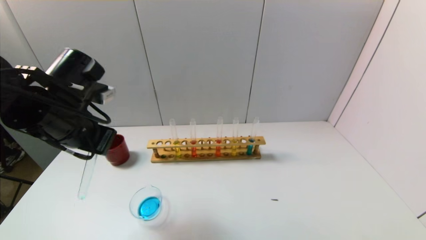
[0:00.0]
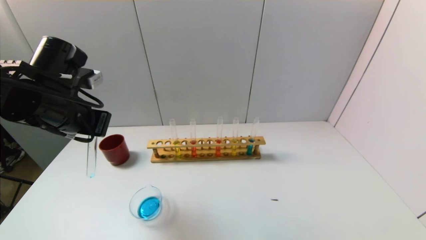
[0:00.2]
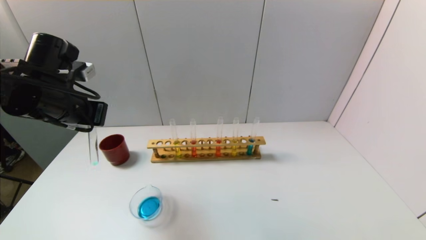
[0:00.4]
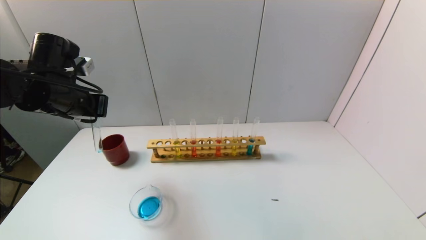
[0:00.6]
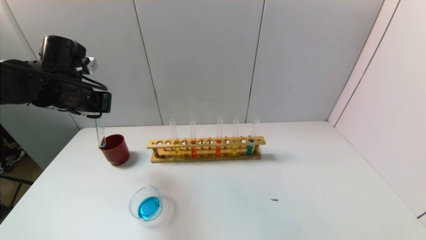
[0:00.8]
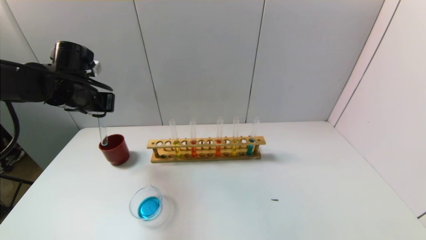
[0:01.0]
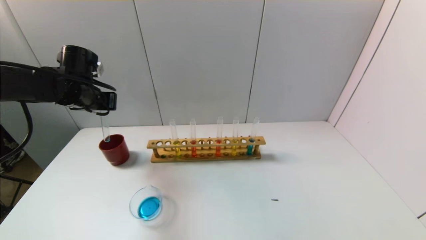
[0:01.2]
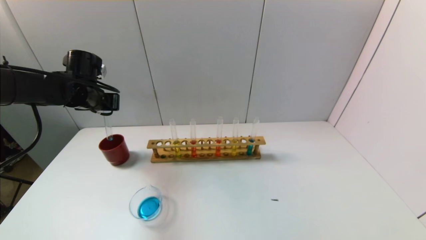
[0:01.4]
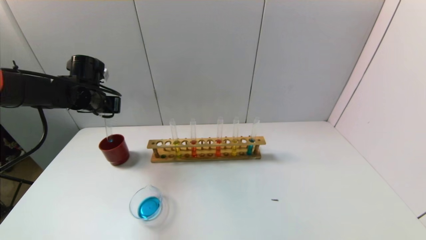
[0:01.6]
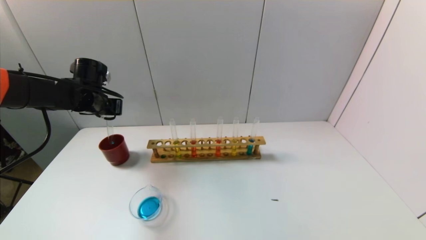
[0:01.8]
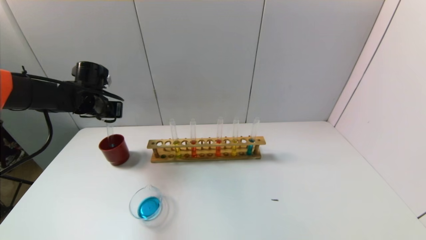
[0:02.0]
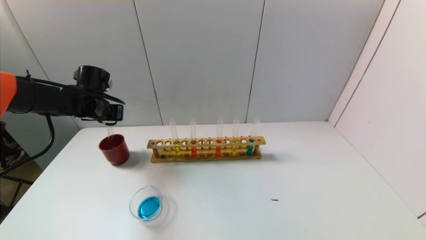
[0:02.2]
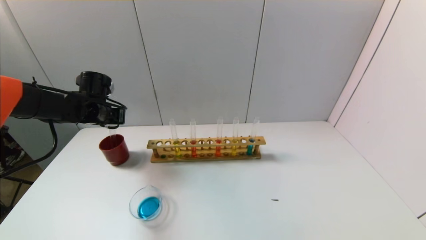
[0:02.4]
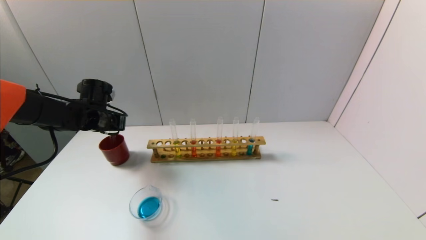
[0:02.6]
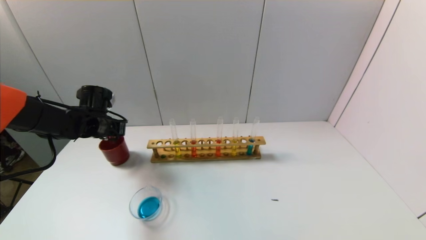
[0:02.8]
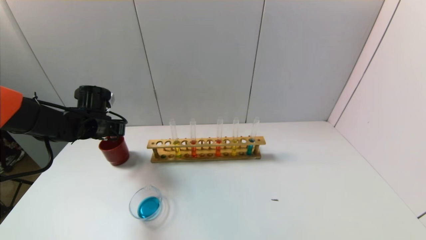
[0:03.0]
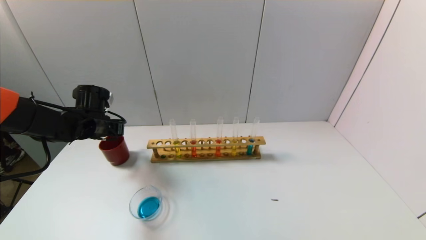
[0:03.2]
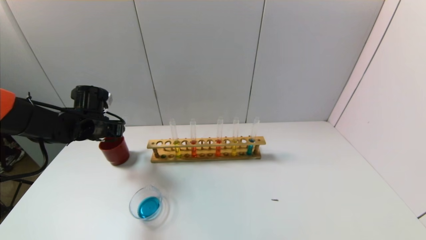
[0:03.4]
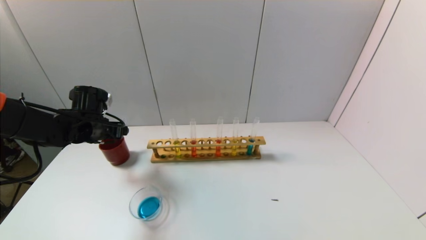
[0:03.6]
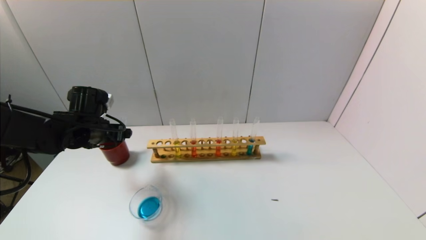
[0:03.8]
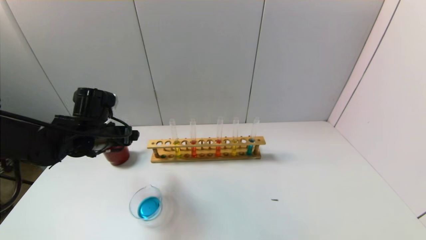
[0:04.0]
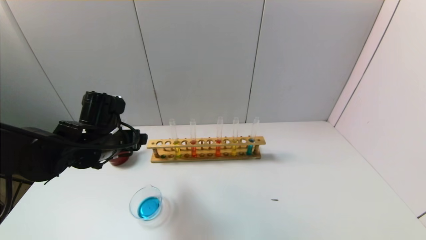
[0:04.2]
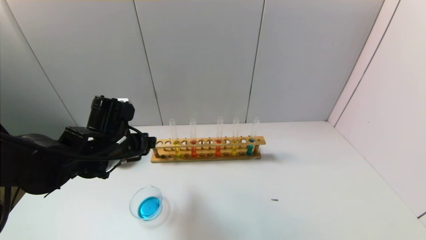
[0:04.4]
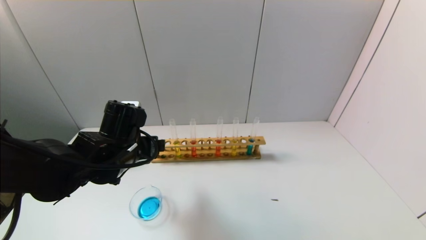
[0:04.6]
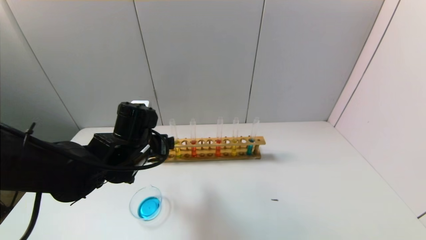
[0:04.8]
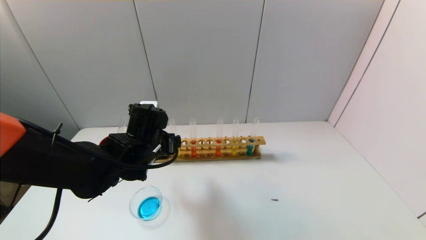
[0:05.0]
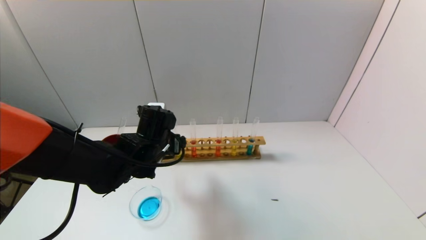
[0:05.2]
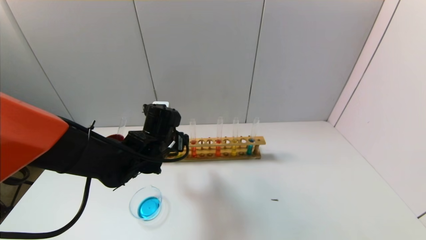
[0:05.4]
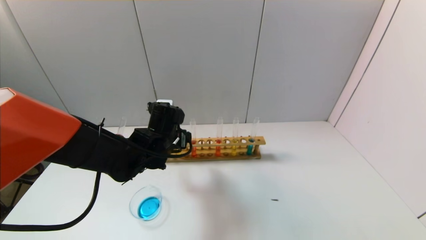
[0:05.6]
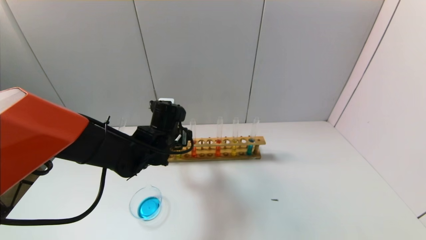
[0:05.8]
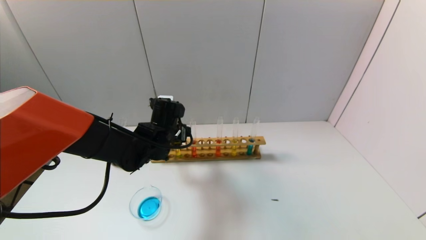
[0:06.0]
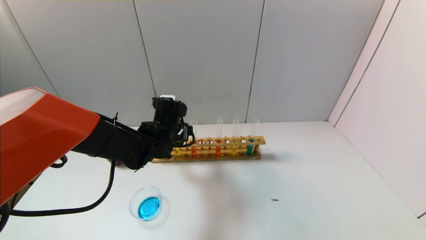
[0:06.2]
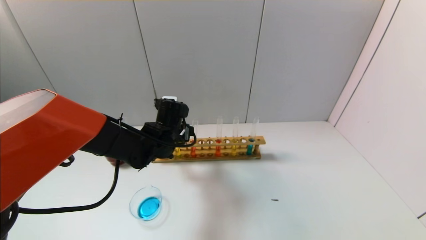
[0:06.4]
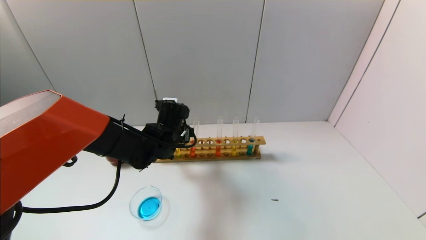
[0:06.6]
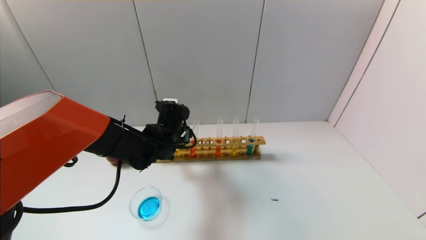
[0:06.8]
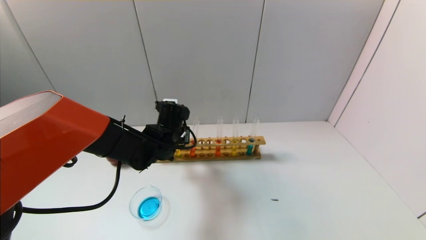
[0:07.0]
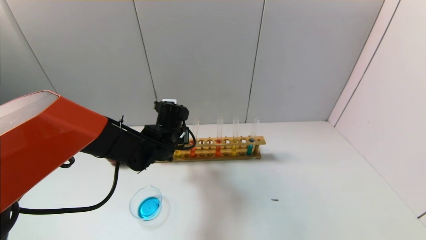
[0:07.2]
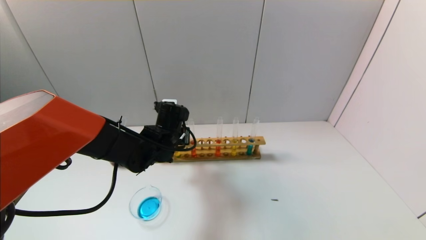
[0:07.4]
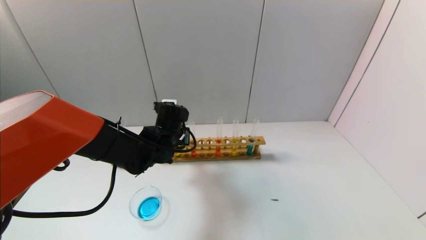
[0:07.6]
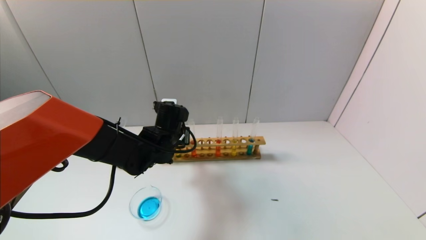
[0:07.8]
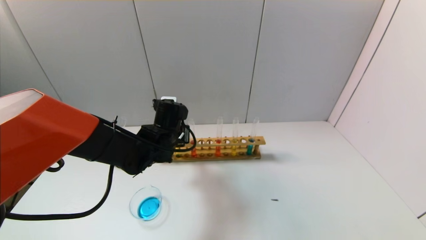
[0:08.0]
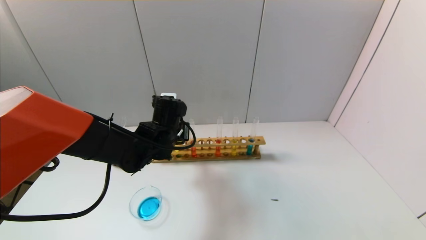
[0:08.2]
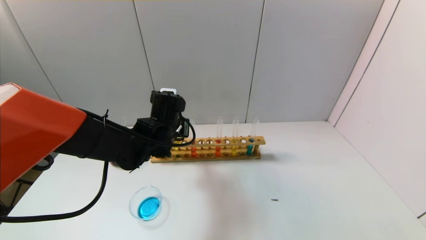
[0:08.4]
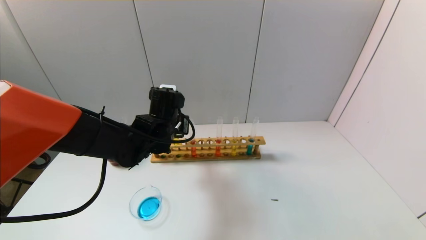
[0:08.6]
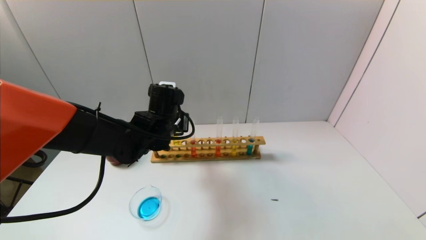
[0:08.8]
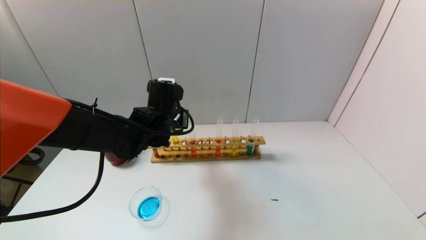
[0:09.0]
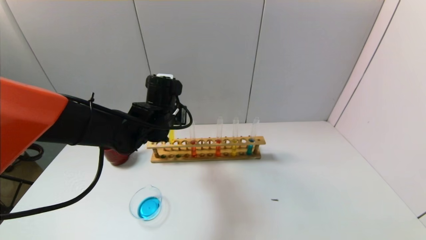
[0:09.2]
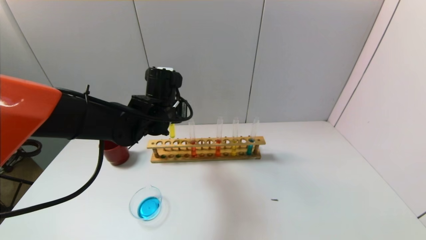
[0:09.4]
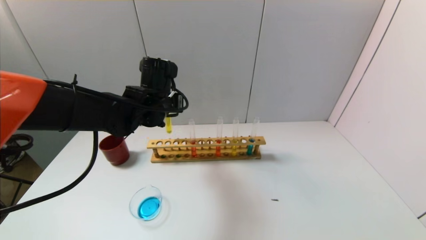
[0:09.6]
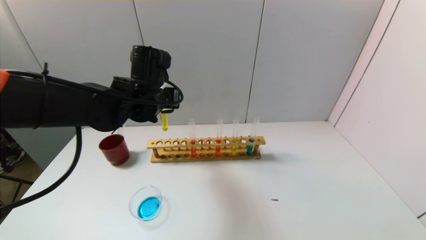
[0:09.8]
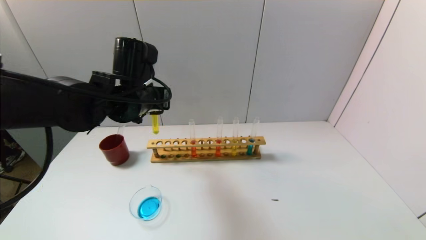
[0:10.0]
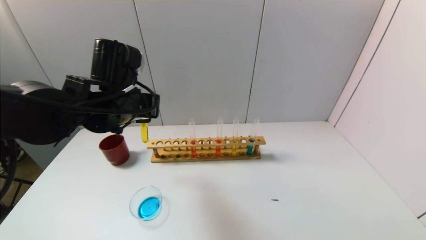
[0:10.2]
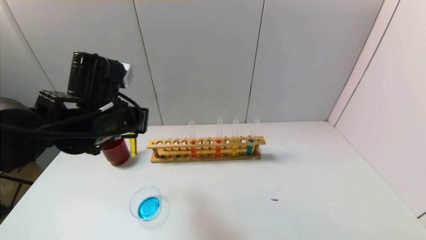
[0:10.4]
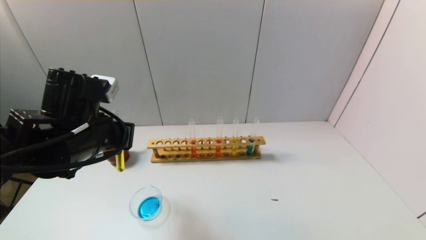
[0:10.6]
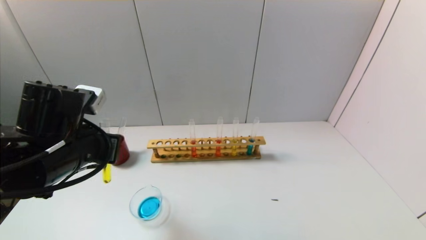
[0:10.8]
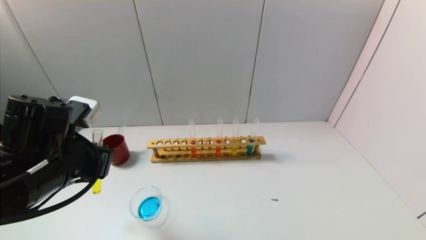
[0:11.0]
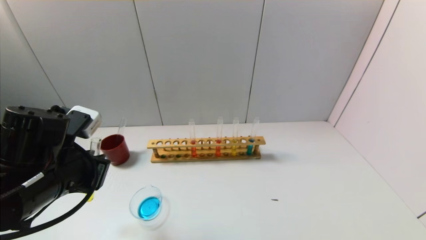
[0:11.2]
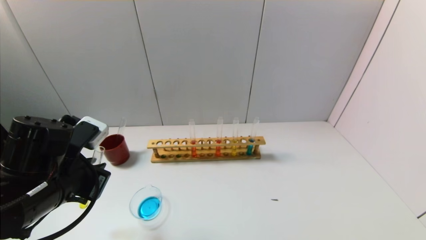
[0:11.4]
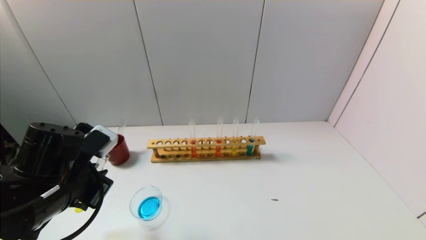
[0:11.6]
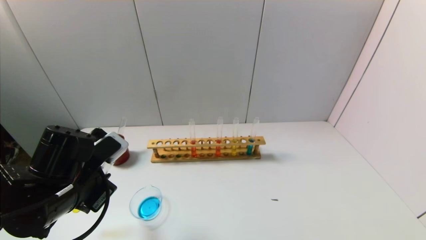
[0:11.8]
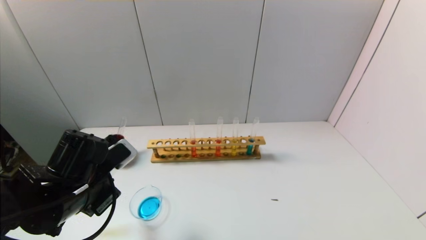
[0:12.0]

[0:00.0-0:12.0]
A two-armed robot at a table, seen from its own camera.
Task of the whole recording: pick up the test tube with yellow pigment and the test tube with blue pigment by grippers and pour them into the beaker.
Step, 0:00.0 to 0:03.6: Place the test tube into the brown cup with the left gripper.
Step, 0:03.8 to 0:07.8: Grasp the yellow reagent with the left gripper.
0:00.0 to 0:01.6: The left gripper heads forward and to the left, covering approximately 20 cm.
0:01.6 to 0:03.0: The left gripper moves downward, about 5 cm.
0:03.0 to 0:04.4: The left gripper heads backward and to the right, covering some 15 cm, and opens up.
0:04.4 to 0:06.0: The left gripper goes some 10 cm forward and to the right.
0:06.0 to 0:07.6: The left gripper closes up.
0:07.6 to 0:09.0: The left gripper moves upward, about 5 cm.
0:09.0 to 0:10.4: The left gripper is displaced backward, to the left and upward by some 15 cm.
0:10.4 to 0:12.0: The left gripper goes approximately 10 cm downward and backward.

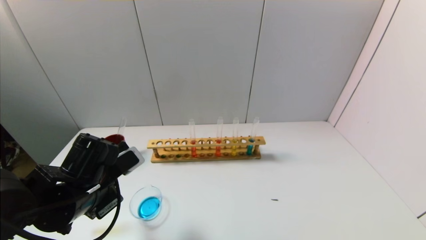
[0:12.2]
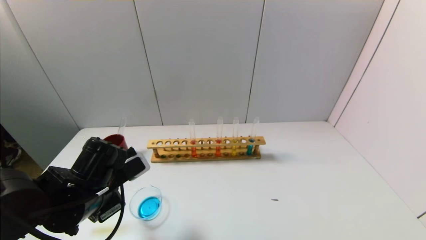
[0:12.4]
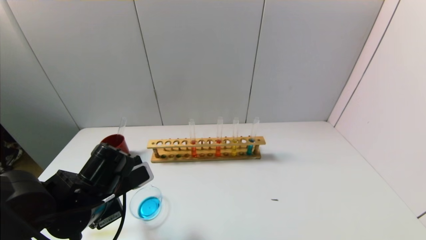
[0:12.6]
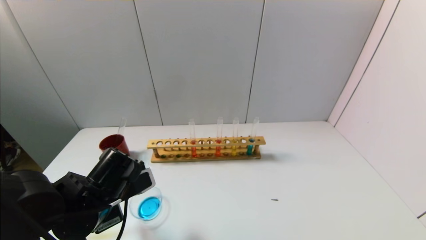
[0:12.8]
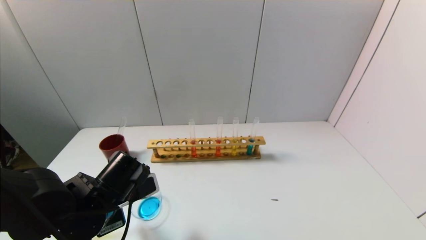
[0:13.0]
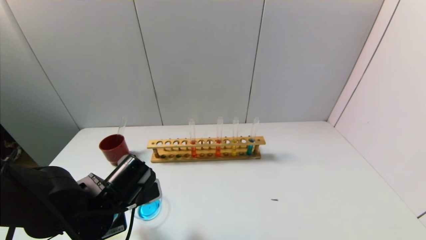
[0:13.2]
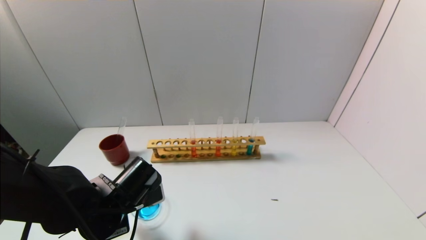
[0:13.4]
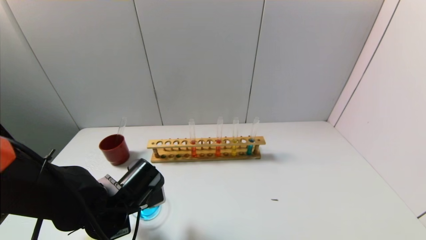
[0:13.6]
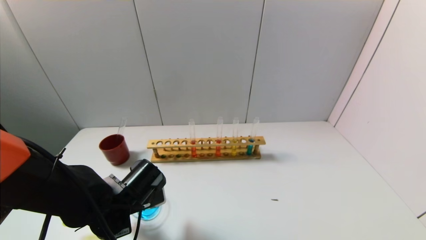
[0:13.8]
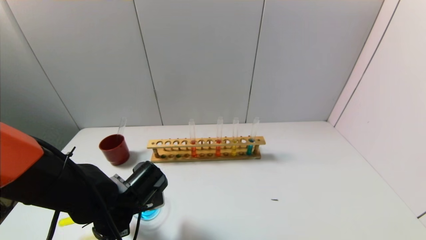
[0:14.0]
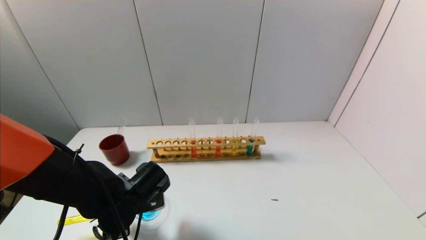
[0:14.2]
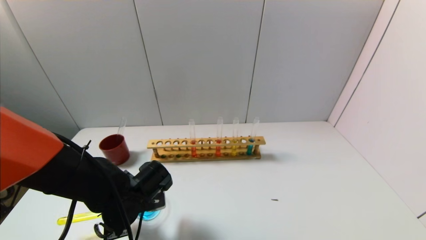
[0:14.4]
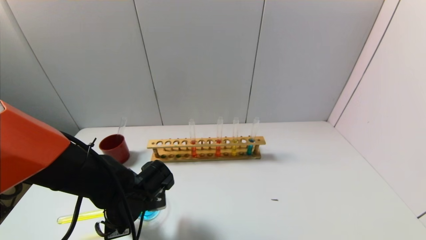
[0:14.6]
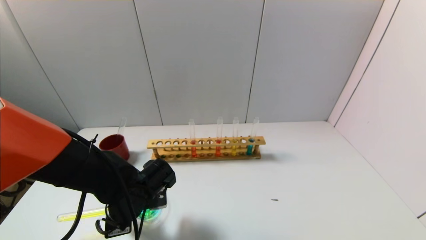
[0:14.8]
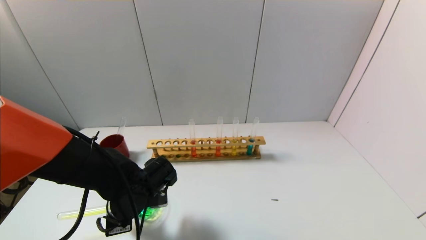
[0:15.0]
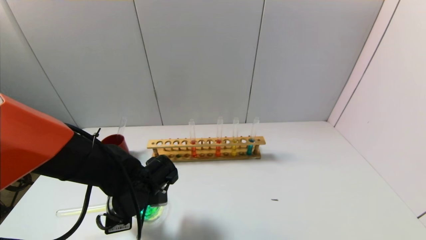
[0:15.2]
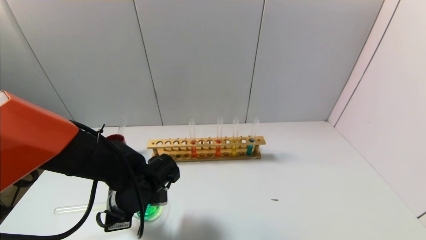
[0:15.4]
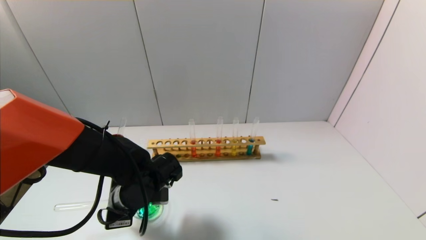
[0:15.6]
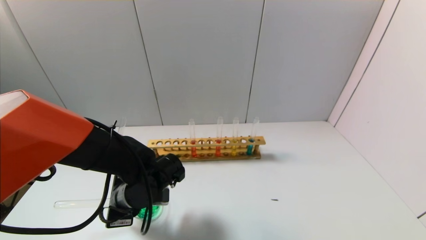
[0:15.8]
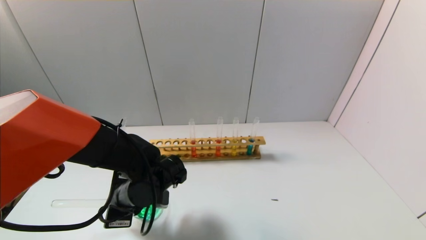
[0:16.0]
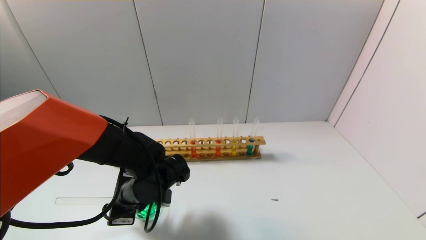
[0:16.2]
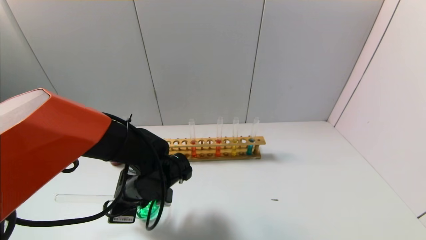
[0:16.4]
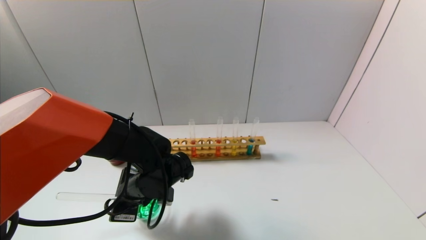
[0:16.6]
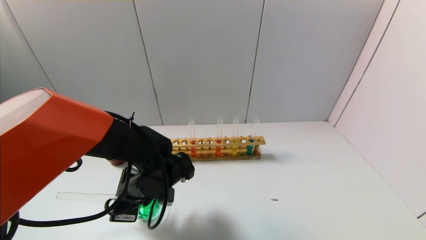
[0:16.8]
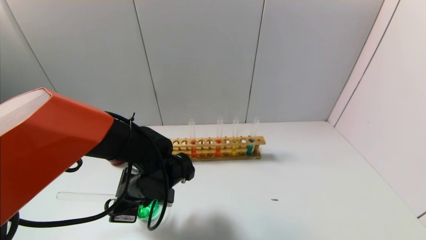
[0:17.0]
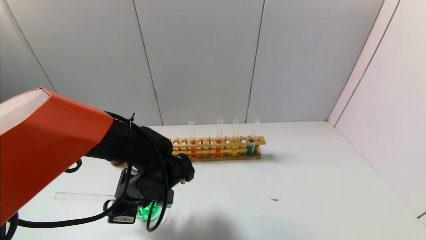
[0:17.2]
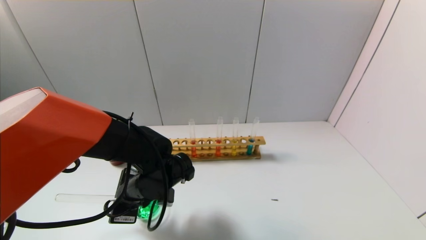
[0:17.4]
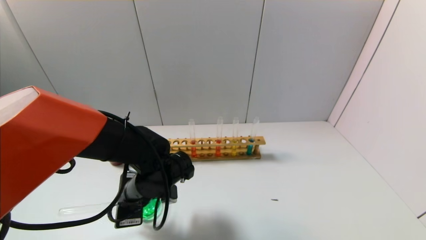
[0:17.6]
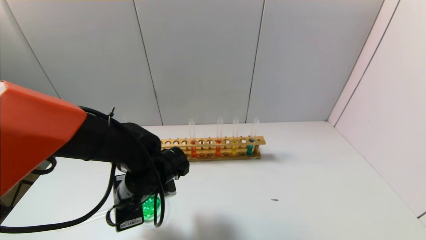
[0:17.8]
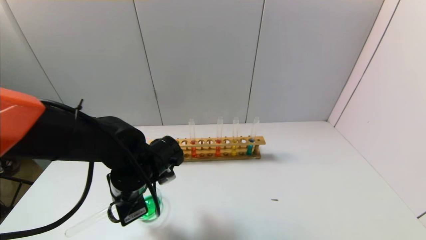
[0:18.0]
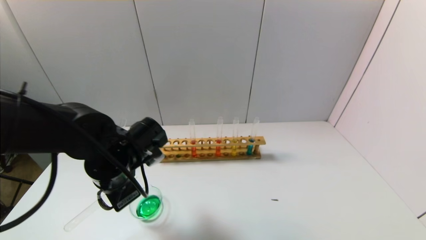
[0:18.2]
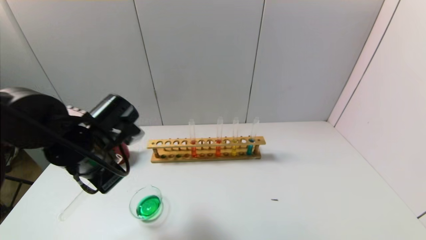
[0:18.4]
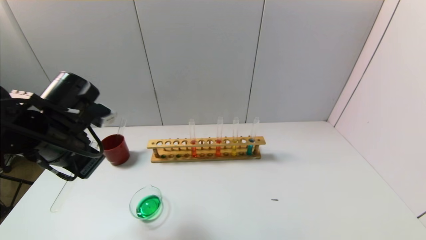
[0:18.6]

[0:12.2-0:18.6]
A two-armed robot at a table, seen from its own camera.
Task of the whole recording: pick up the test tube with yellow pigment and the test tube with blue pigment by grippers and pour them into the beaker.
Step, 0:12.2 to 0:16.6: Pour the yellow reagent into the graduated cylinder with the left gripper.
0:12.2 to 0:13.8: The left gripper moves downward, roughly 5 cm.
0:13.8 to 0:15.4: The grippers make only small movements.
0:15.4 to 0:17.0: The grippers move only a little.
0:17.0 to 0:18.6: The left gripper goes some 15 cm upward and to the left.
